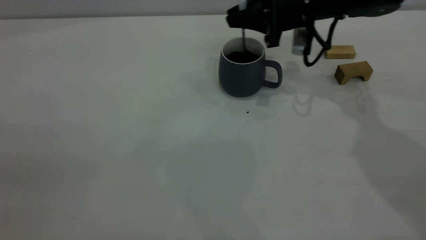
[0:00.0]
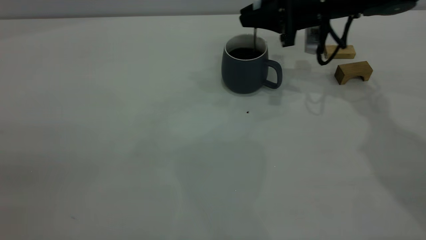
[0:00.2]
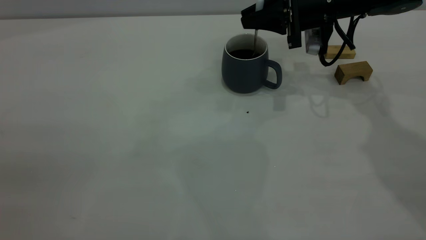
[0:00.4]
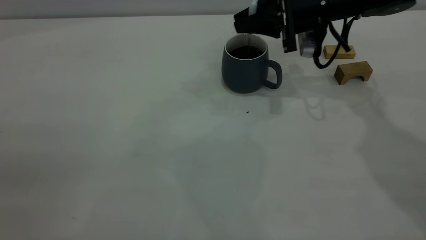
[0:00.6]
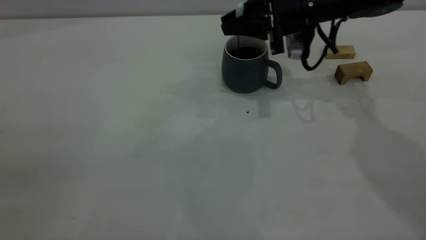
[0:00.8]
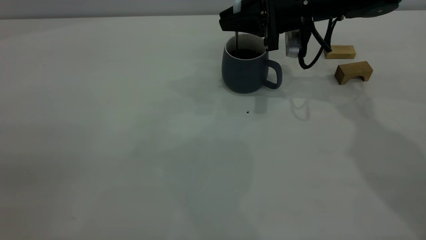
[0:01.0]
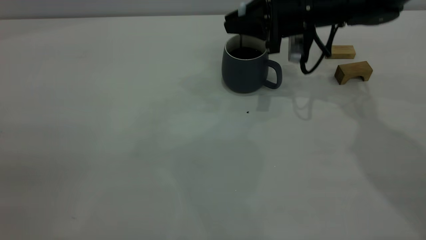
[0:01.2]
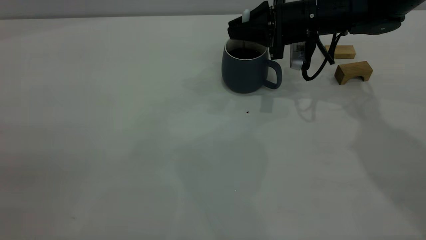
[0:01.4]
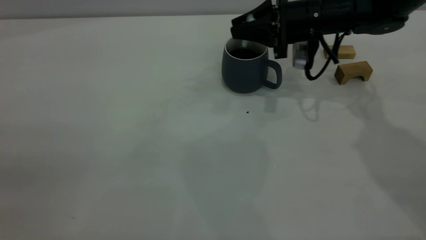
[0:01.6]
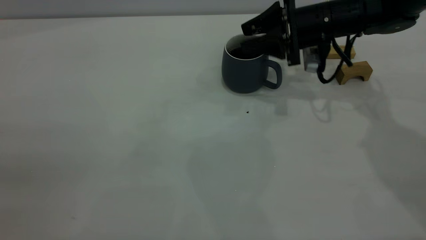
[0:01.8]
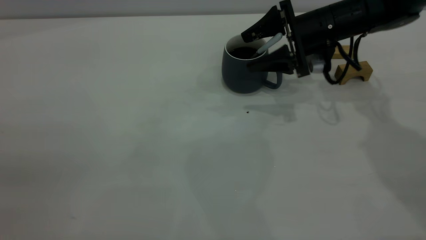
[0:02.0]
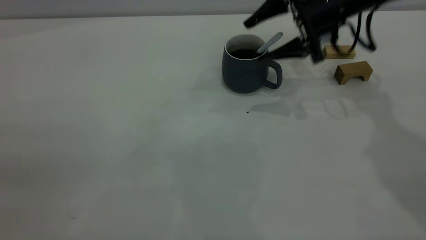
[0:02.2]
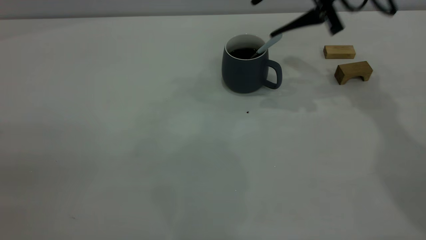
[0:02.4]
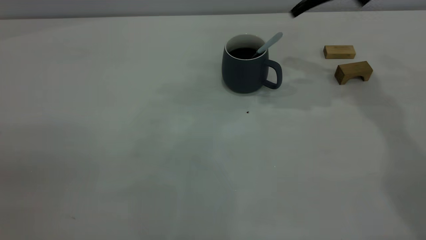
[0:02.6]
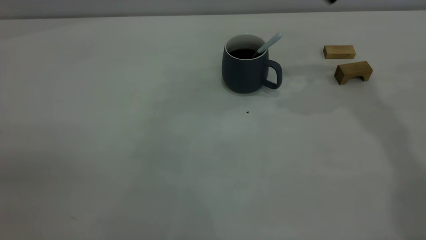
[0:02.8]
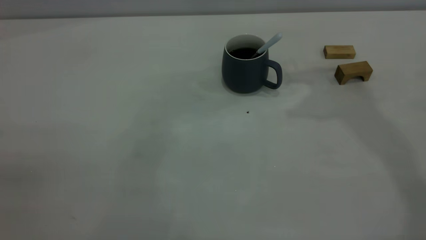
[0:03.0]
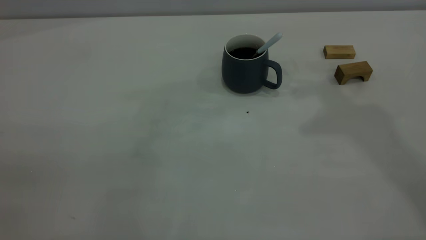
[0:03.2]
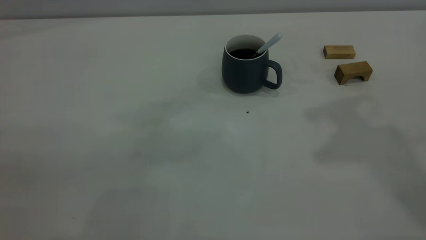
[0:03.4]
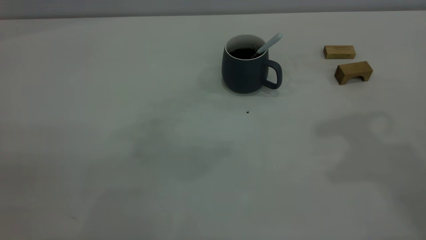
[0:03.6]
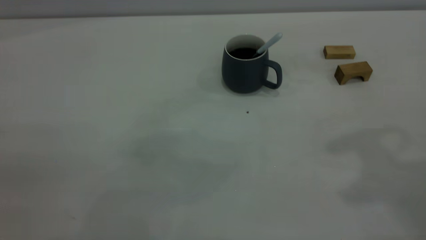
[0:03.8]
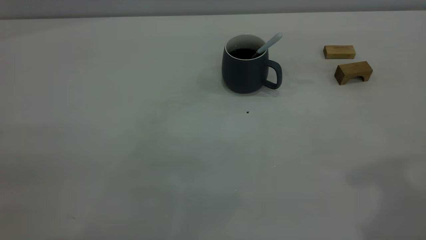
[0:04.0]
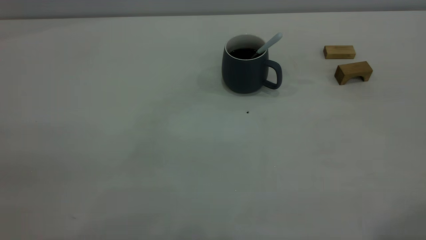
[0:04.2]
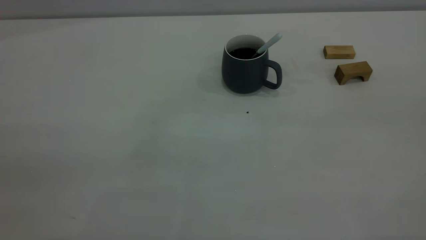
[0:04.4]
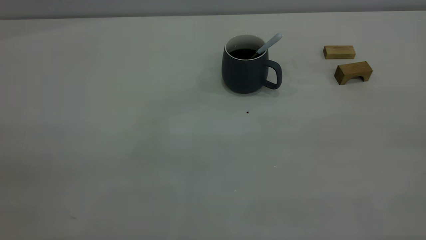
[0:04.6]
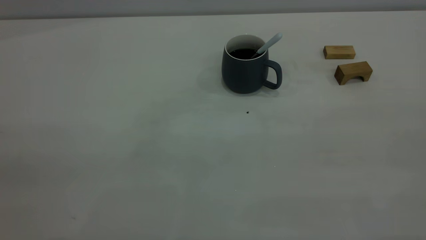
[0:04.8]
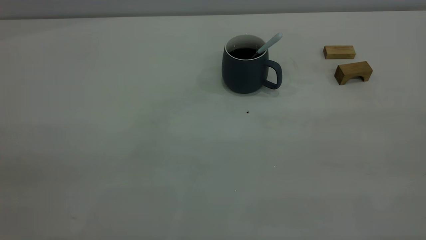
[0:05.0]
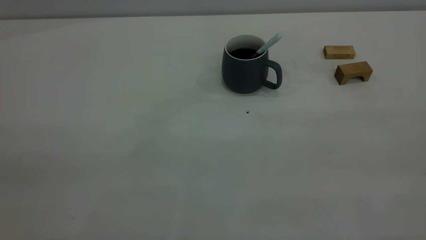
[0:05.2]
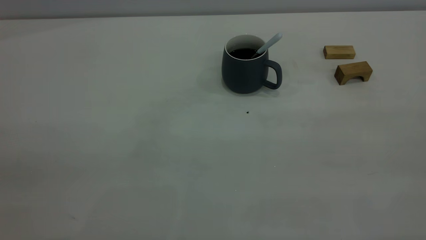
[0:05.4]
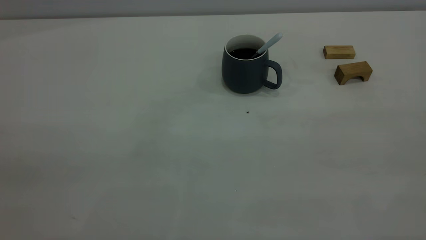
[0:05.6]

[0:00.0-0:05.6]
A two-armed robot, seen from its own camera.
Step, 0:00.0 to 0:02.4: Stir the coffee in the cup.
0:00.0 to 0:01.4: The grippers make only small movements.
0:01.4 to 0:02.8: The right gripper moves upward, about 20 cm, and opens, then closes once more.

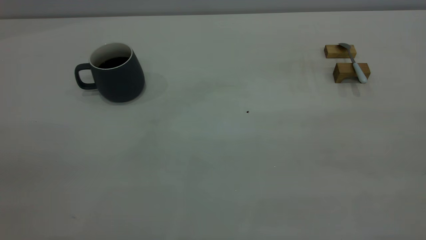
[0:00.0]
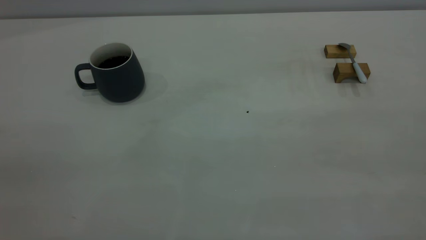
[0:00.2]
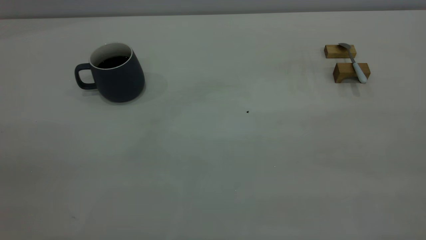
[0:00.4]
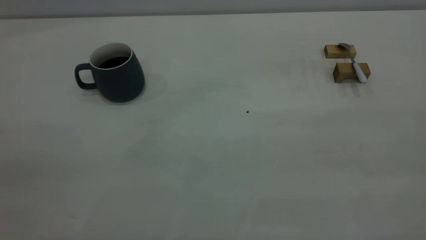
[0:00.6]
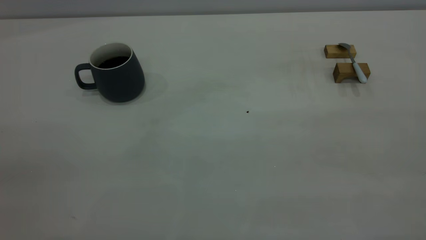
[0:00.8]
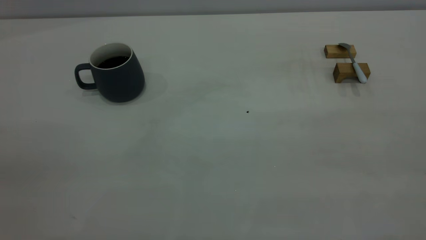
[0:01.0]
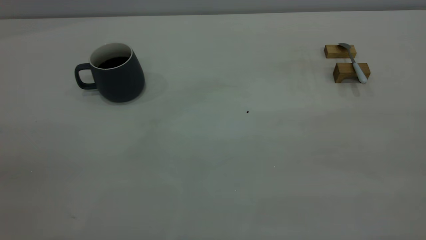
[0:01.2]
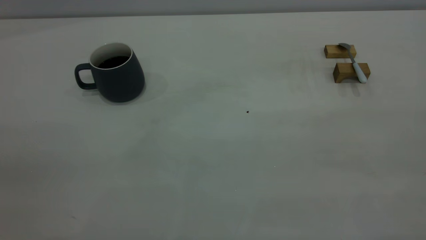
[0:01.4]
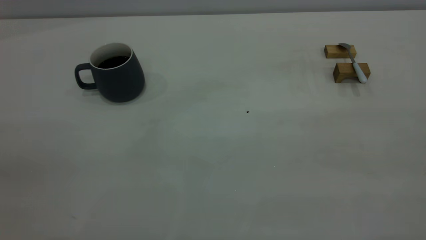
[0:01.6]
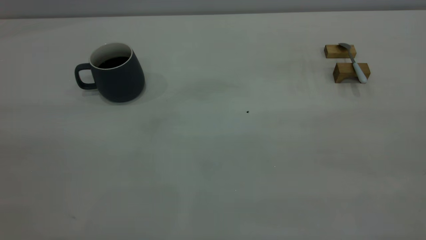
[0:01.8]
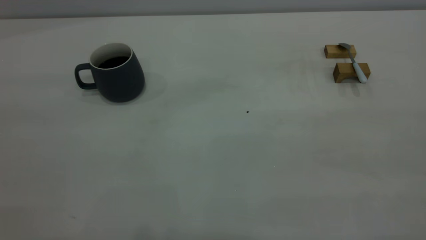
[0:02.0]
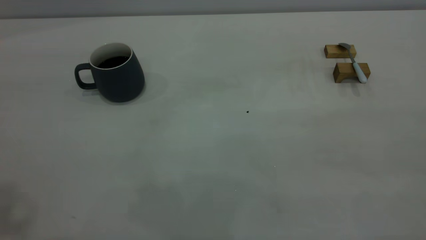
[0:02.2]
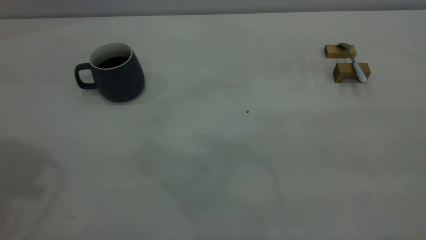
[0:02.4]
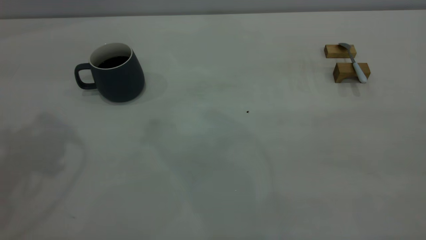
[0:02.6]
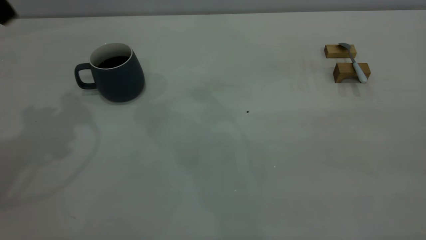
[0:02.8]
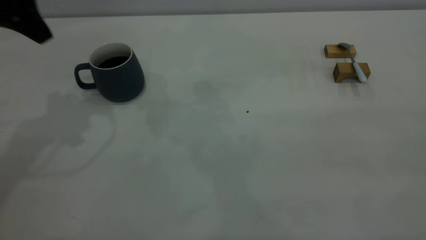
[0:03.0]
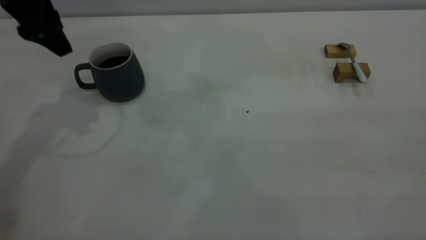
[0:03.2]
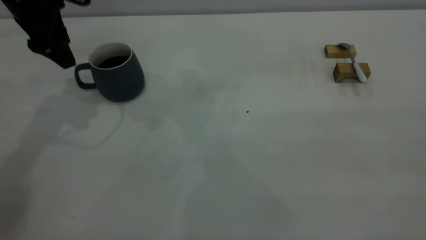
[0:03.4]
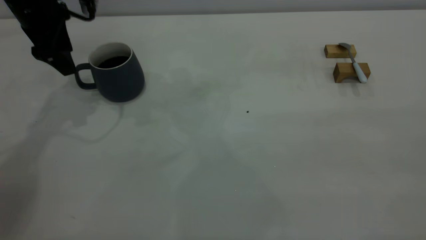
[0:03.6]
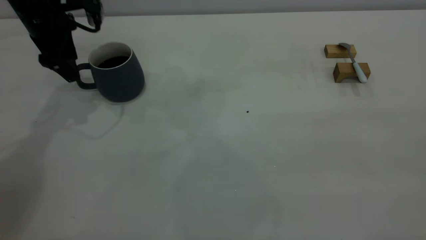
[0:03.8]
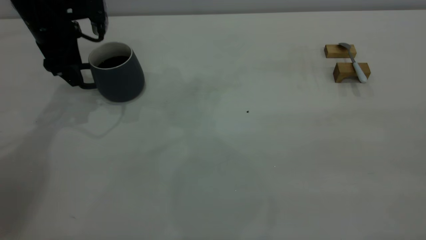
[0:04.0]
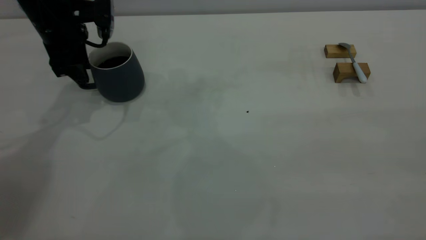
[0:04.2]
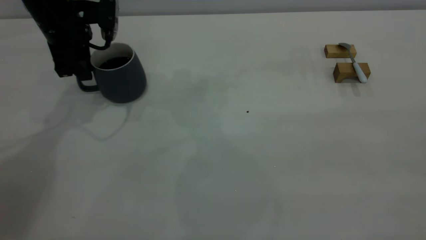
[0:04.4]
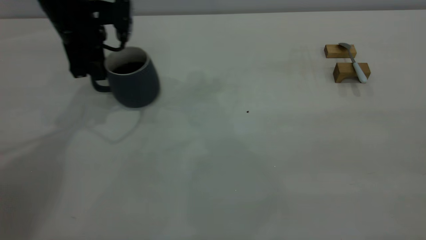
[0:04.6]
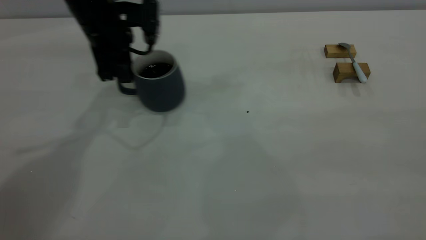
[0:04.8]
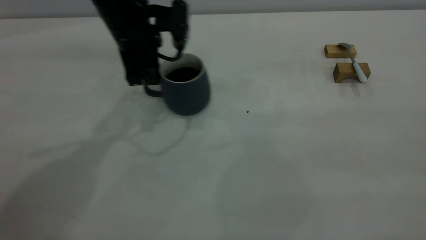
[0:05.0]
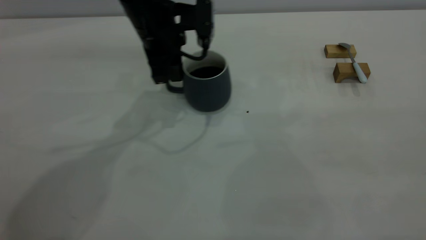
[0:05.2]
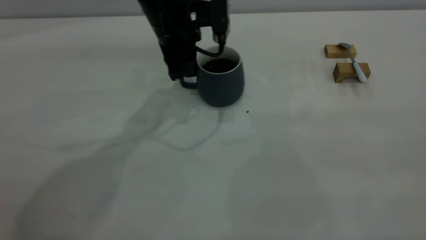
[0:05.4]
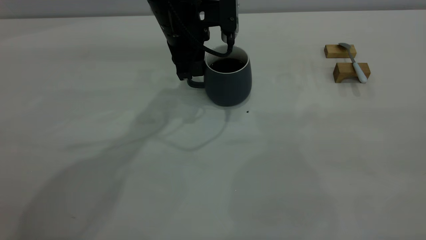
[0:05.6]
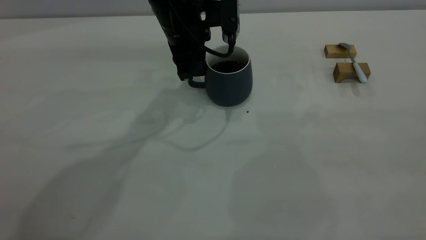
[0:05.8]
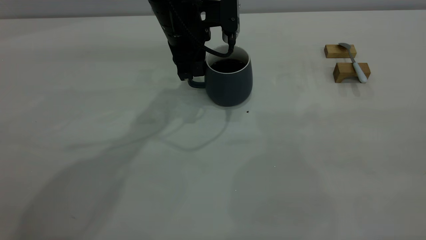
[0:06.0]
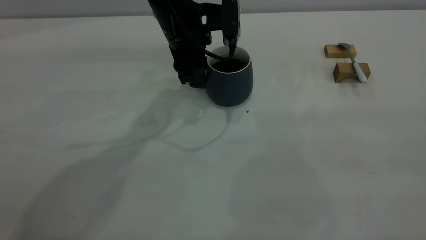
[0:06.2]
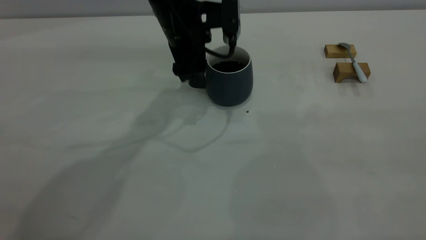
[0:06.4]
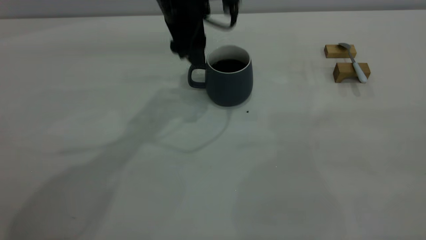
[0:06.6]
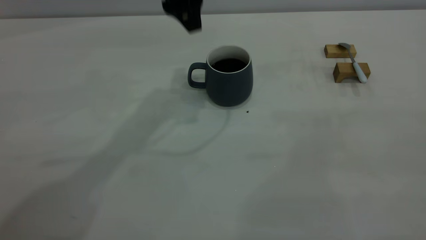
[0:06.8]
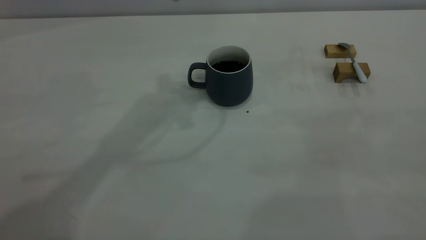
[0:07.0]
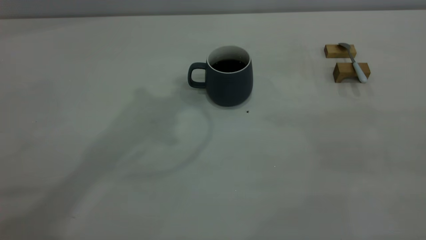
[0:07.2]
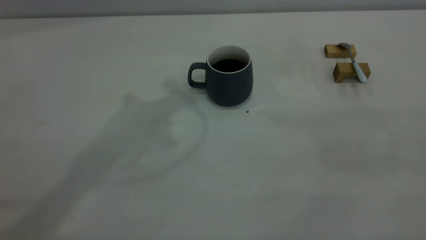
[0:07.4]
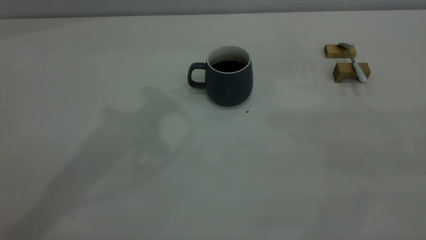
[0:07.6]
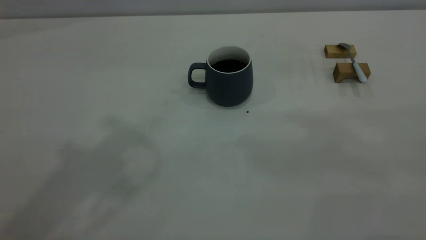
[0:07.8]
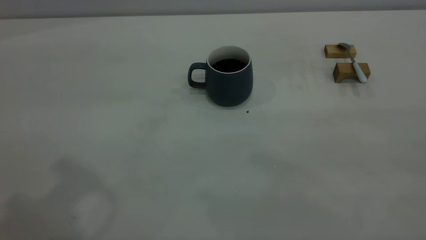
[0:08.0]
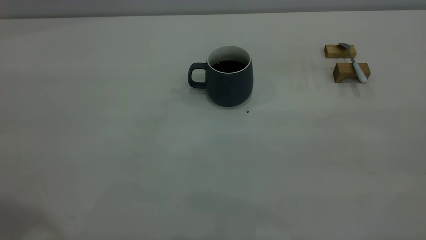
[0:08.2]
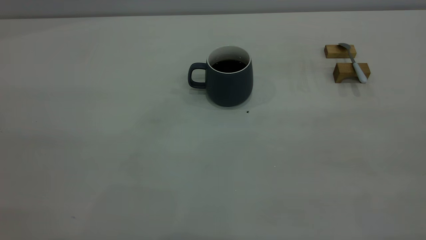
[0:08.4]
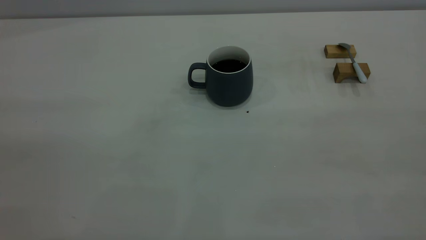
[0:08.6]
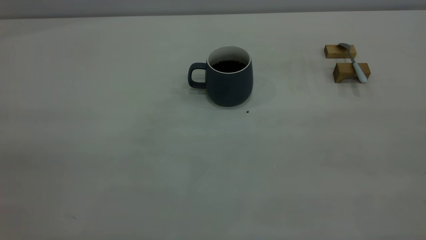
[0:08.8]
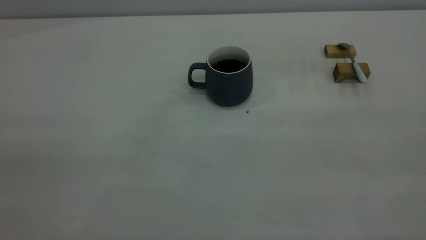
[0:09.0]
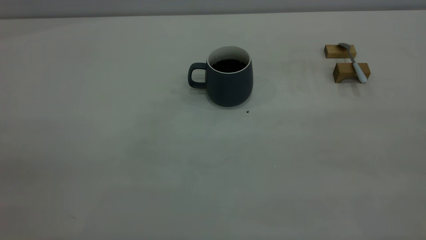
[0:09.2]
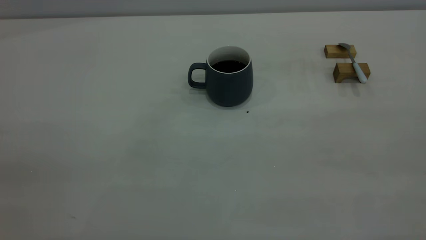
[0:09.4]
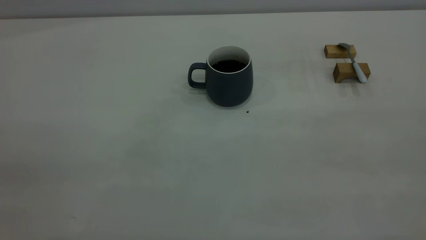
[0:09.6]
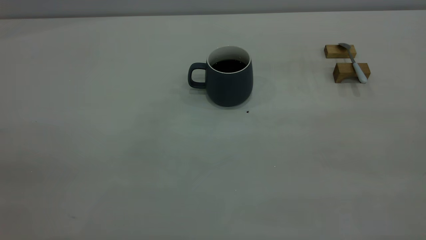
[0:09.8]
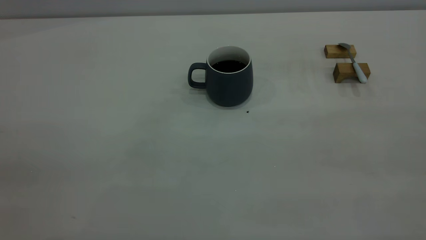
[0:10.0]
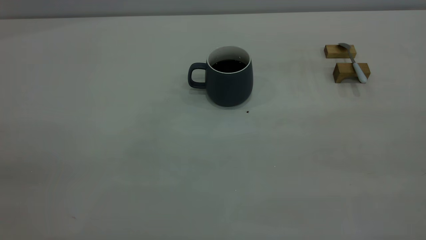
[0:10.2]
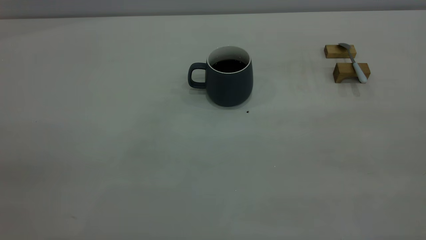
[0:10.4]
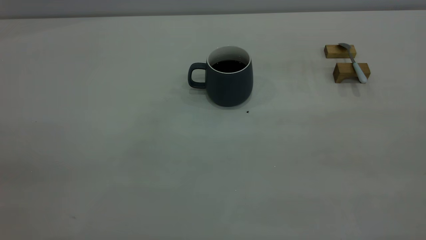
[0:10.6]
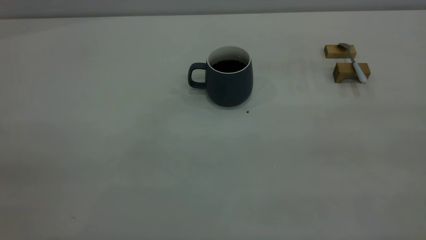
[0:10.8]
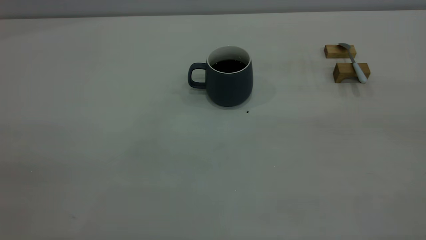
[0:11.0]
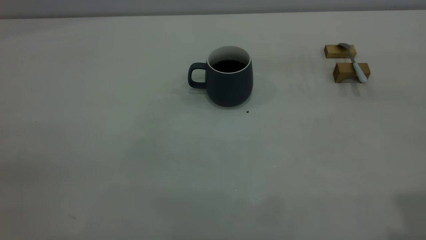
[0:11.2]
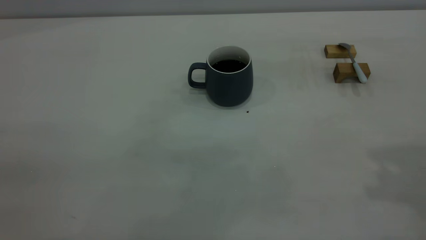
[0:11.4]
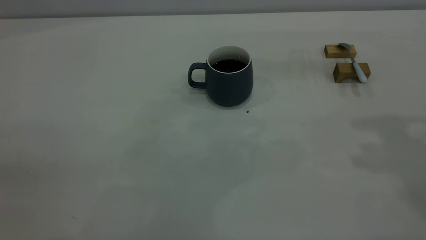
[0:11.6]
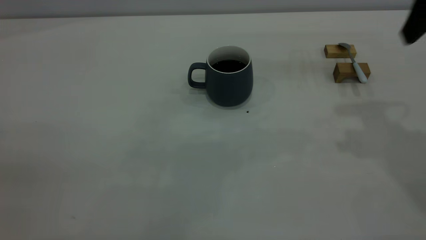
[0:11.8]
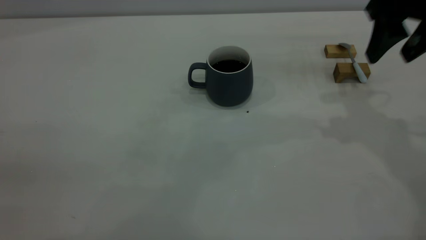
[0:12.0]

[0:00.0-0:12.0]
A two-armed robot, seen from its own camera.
Step, 0:00.0 to 0:06.6: Move the cup with coffee to the center of view.
0:00.0 to 0:01.6: The two grippers keep their place.
0:01.6 to 0:03.0: The left gripper heads forward, covering approximately 40 cm, and opens its fingers.
0:03.0 to 0:04.4: The left gripper moves downward and forward, roughly 15 cm, and closes.
0:04.4 to 0:06.0: The left gripper moves to the right, about 20 cm.
0:06.0 to 0:07.6: The left gripper is displaced upward and backward by approximately 30 cm, and opens and closes again.
0:09.0 to 0:10.4: The two grippers keep their place.
0:10.4 to 0:12.0: The right gripper heads forward, covering some 35 cm, and opens.
